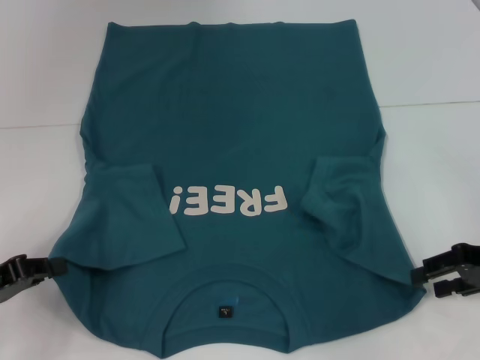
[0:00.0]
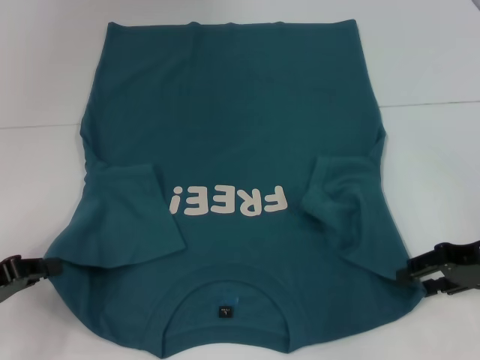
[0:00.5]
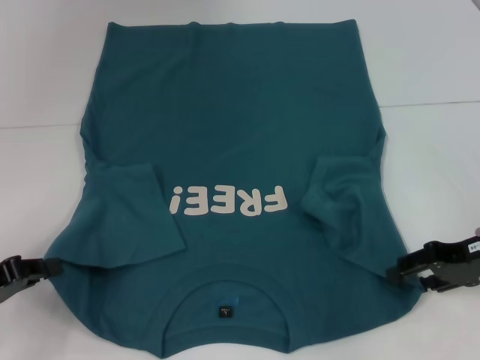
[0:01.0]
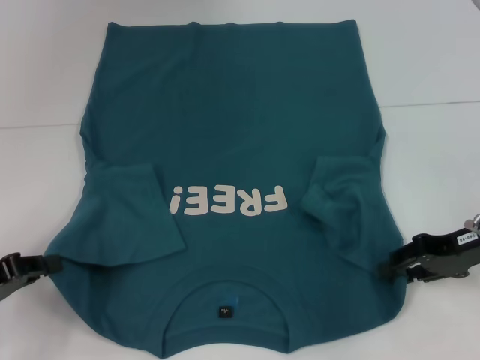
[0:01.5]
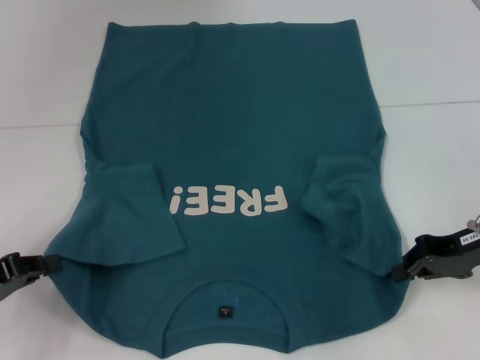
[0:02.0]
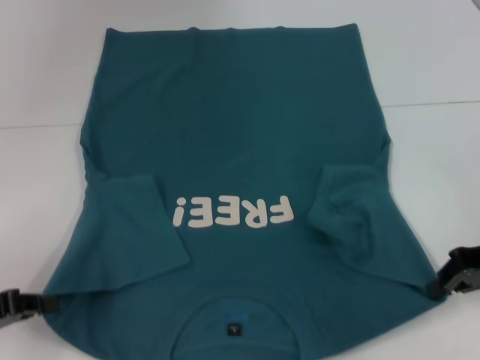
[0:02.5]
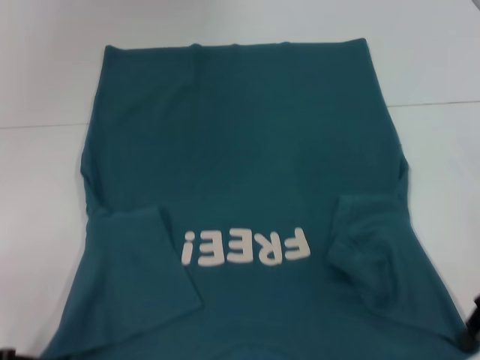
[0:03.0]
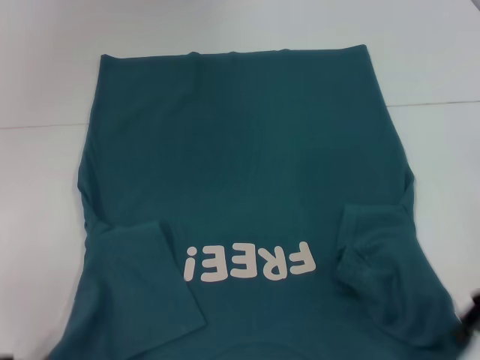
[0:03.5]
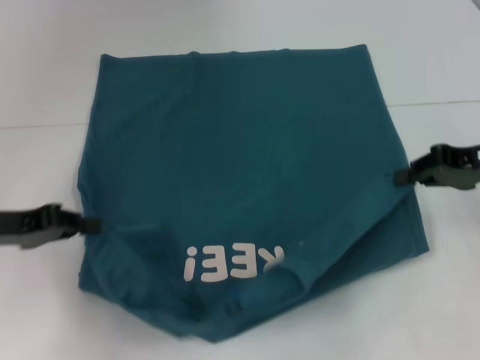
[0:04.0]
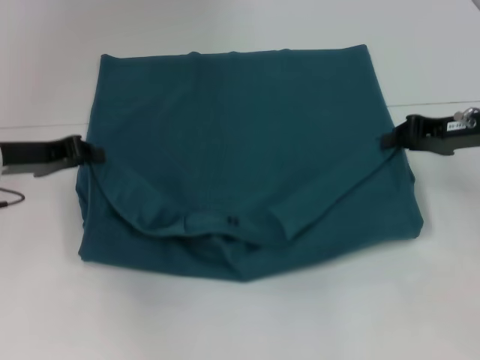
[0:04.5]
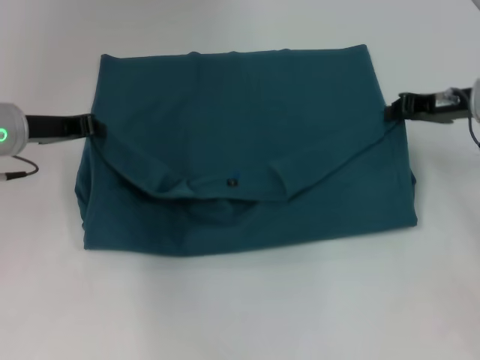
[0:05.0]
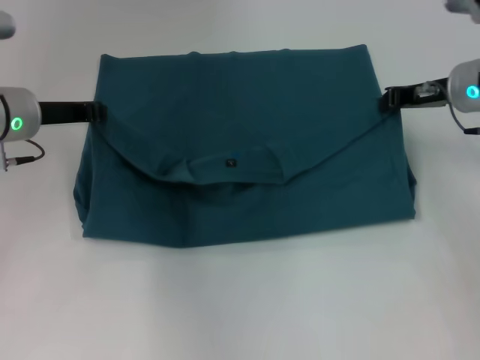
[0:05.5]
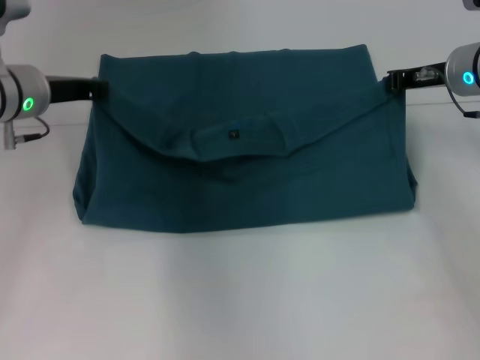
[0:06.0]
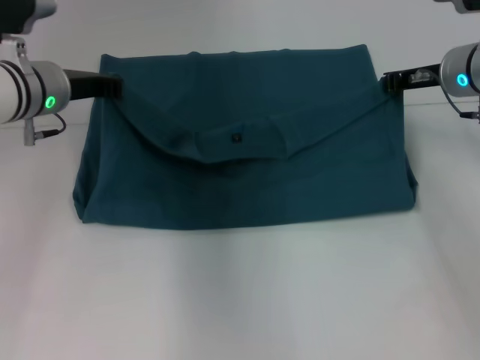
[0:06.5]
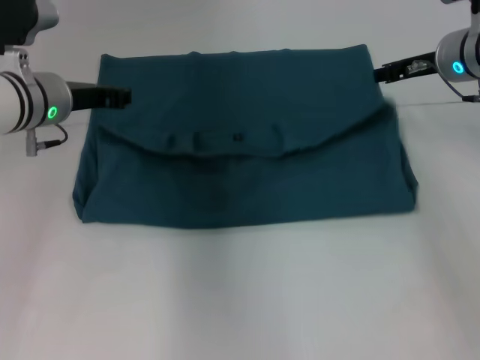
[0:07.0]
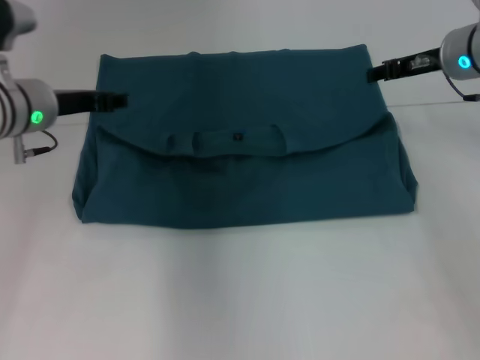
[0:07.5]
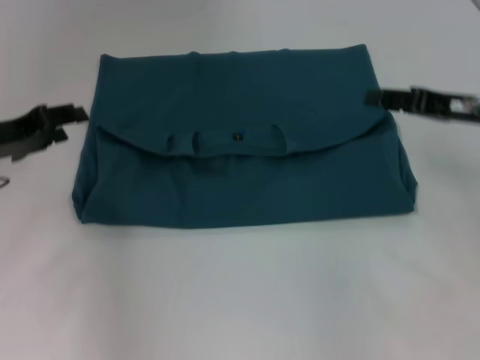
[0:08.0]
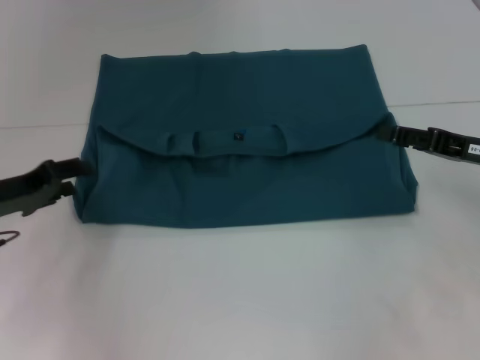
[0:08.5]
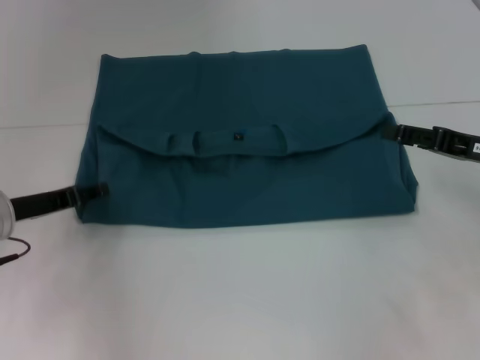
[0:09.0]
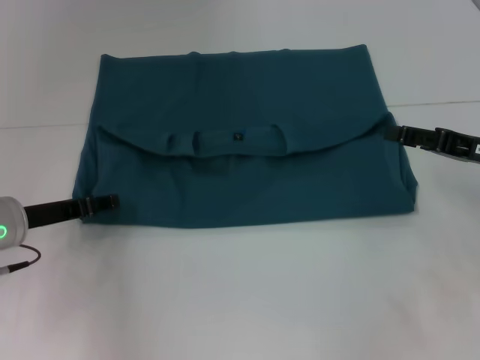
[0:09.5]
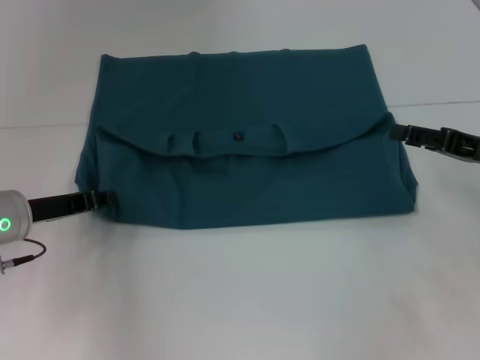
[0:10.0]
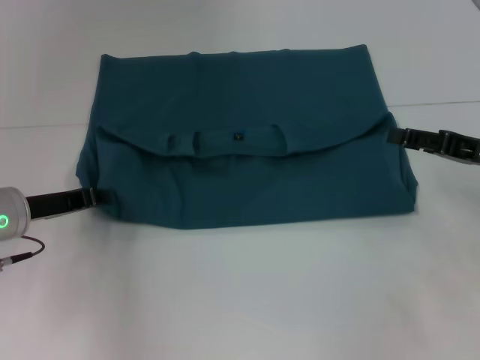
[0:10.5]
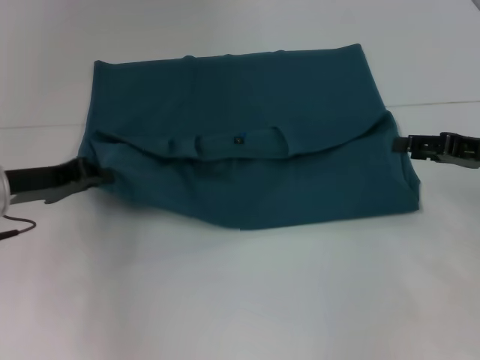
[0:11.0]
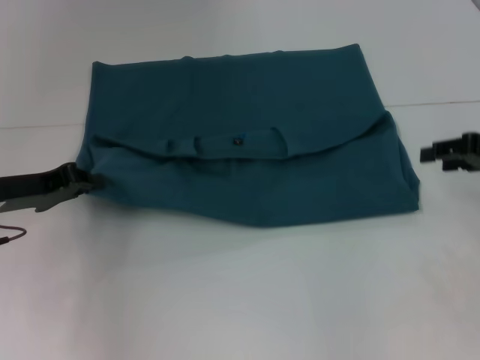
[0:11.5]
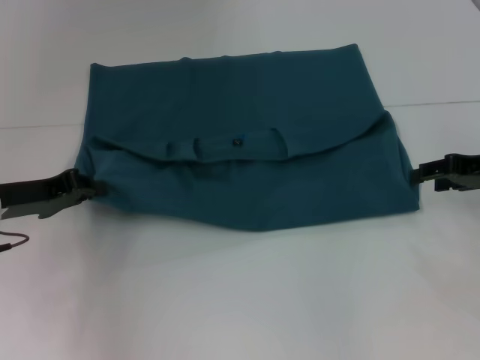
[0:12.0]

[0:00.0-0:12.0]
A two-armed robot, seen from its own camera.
Step, 0:00.0 to 0:02.0: Grab the bottom right corner with your right hand.
Step, 0:02.5 to 0:07.0: Fold the clothes to the left.
Step, 0:02.5 to 0:07.0: Fold the clothes to the right.
0:00.0 to 0:02.0: The right gripper closes up.
0:02.0 to 0:04.0: The right gripper goes approximately 5 cm upward. The left gripper heads forward, covering approximately 5 cm.
0:04.0 to 0:06.0: The right gripper goes roughly 10 cm forward and to the left. Meanwhile the left gripper heads forward and to the right, covering about 15 cm.
0:06.0 to 0:08.0: The left gripper travels to the left and backward by about 10 cm, and opens. Meanwhile the right gripper is displaced backward by approximately 10 cm, and opens.
0:08.0 to 0:10.0: The left gripper is displaced downward by approximately 5 cm, while the right gripper changes place by some 5 cm.
0:10.0 to 0:12.0: The left gripper closes its fingers.

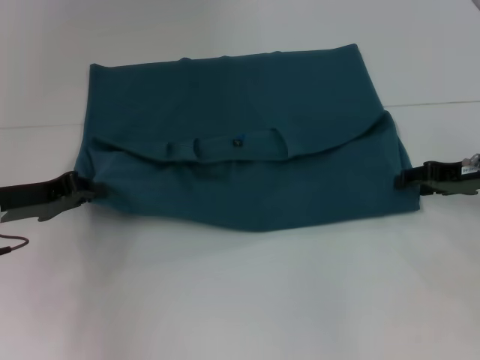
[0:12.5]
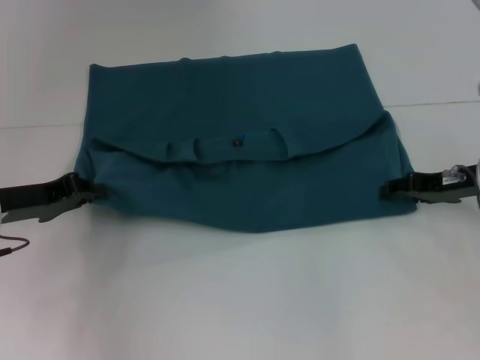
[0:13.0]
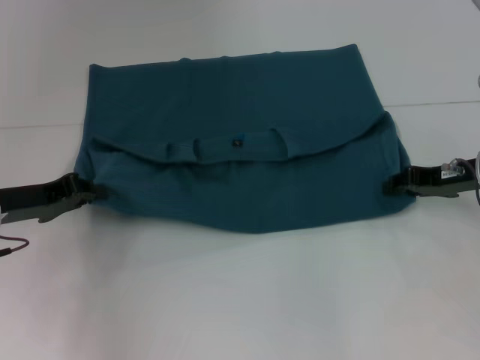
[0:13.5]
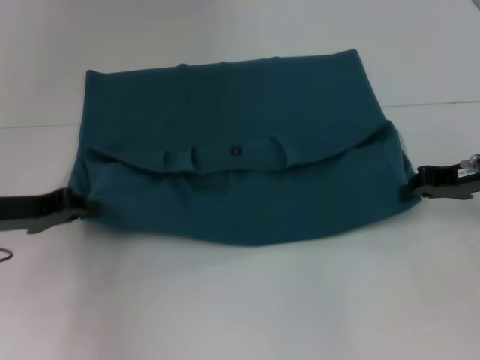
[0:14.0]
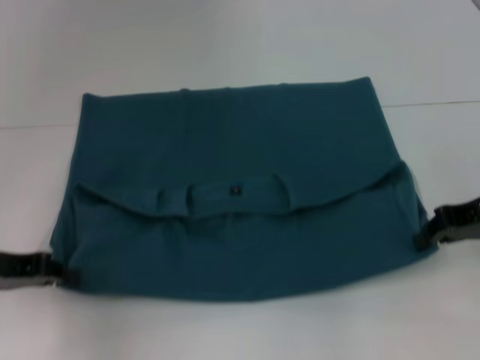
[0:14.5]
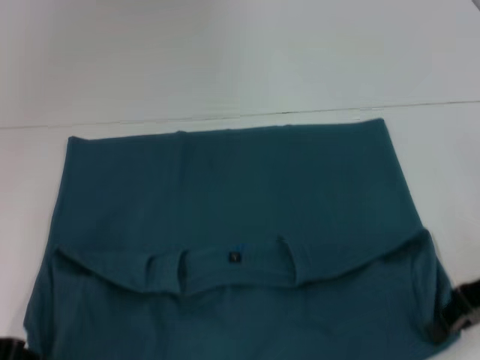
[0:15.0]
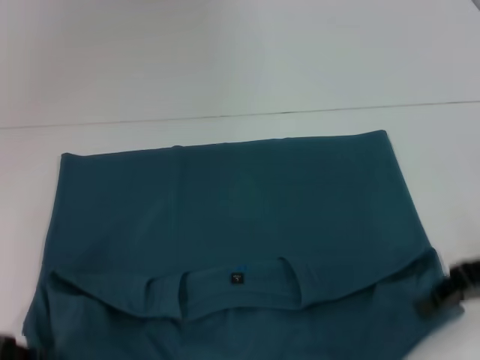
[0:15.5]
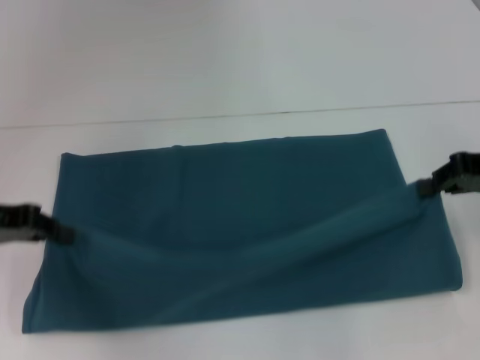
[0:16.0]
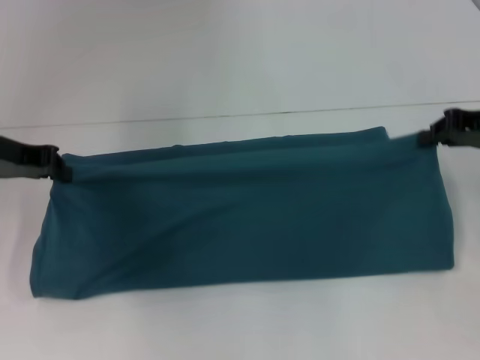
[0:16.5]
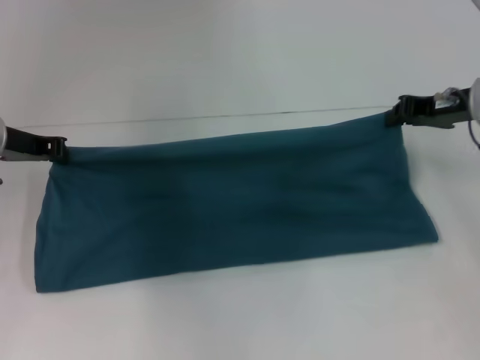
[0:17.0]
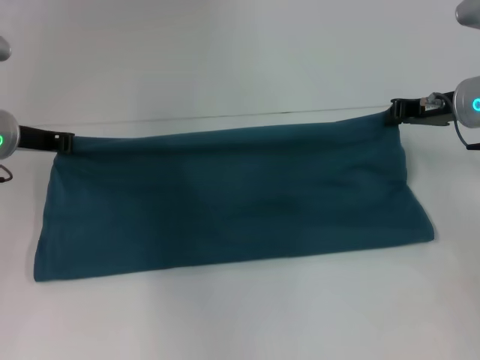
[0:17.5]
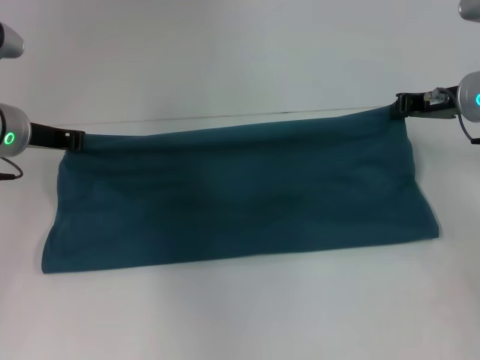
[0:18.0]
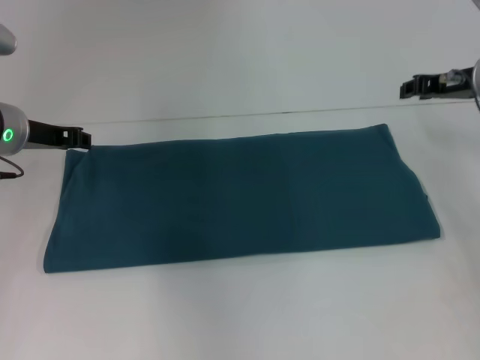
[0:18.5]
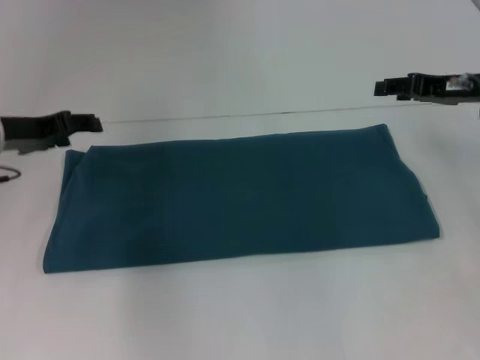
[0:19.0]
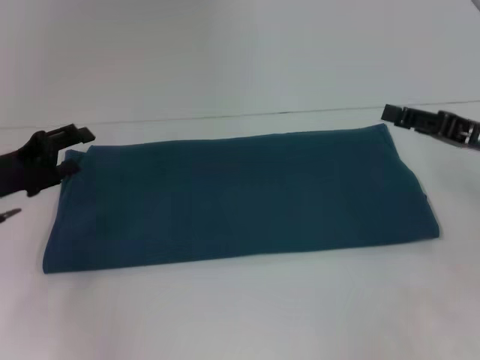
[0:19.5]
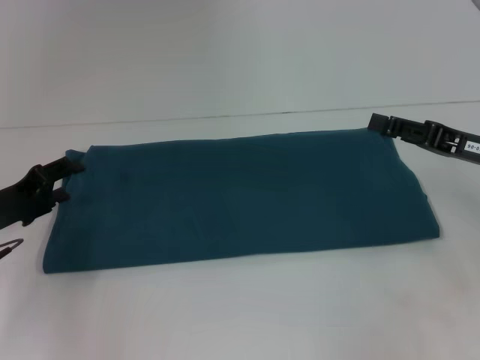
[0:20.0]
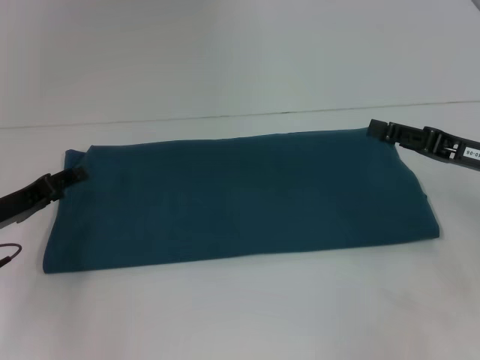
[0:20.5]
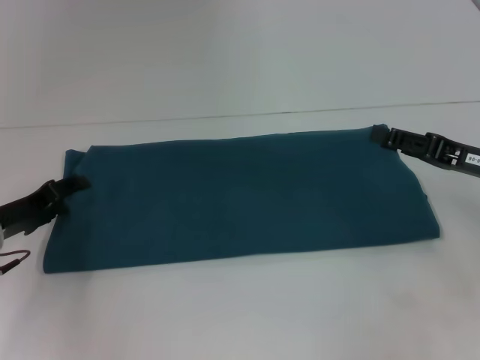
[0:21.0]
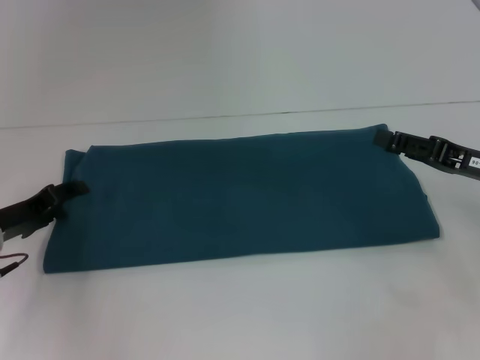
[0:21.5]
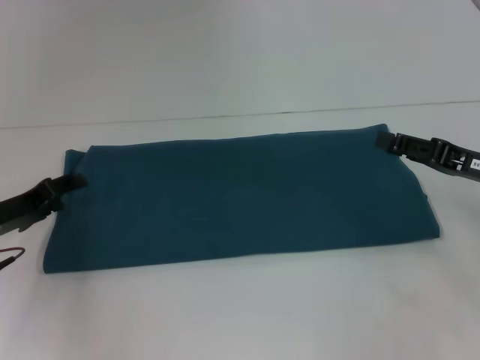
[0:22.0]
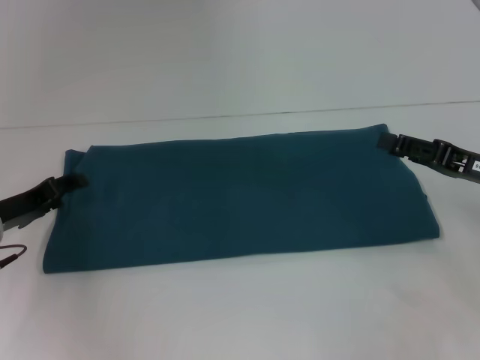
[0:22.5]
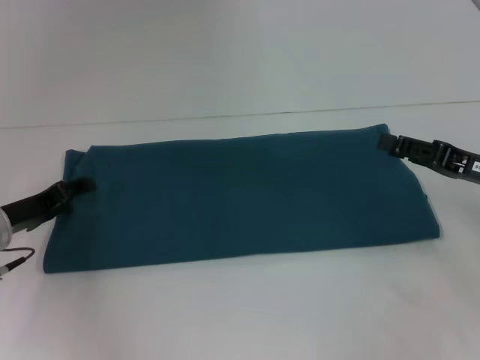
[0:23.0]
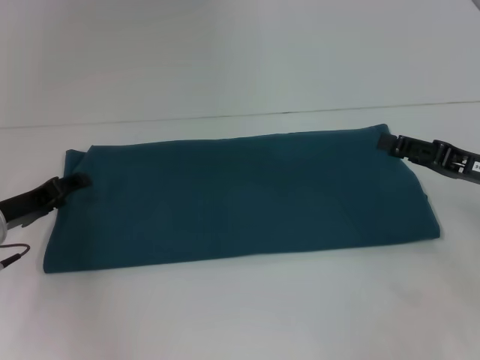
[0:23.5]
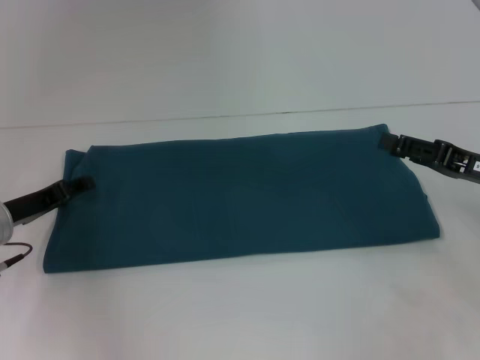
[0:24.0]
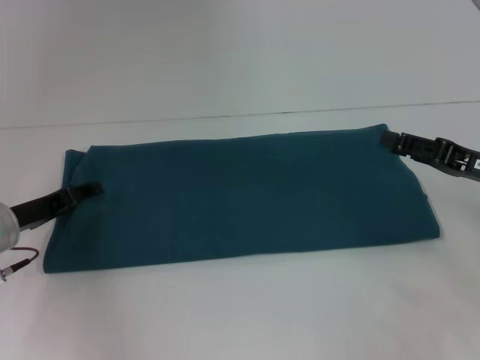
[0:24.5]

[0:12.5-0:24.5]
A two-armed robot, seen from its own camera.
Step, 0:12.5 to 0:15.0: Pull the clothes with your left hand.
Step, 0:12.5 to 0:15.0: Pull the clothes with your right hand.
Step, 0:15.5 to 0:18.0: Fold the clothes to the right.
0:12.5 to 0:14.5: The right gripper moves approximately 5 cm, and closes up.
0:14.5 to 0:16.5: The right gripper ends up about 5 cm from where it was. The left gripper heads forward and upward, covering some 10 cm.
0:16.5 to 0:18.5: The right gripper heads forward, covering about 5 cm. Meanwhile the left gripper shifts by roughly 5 cm.
0:18.5 to 0:20.5: The left gripper moves backward, downward and to the left, some 15 cm, and opens. Meanwhile the right gripper goes approximately 15 cm backward and downward, and opens up.
0:20.5 to 0:24.5: The grippers stay close to where they were, moving slightly.

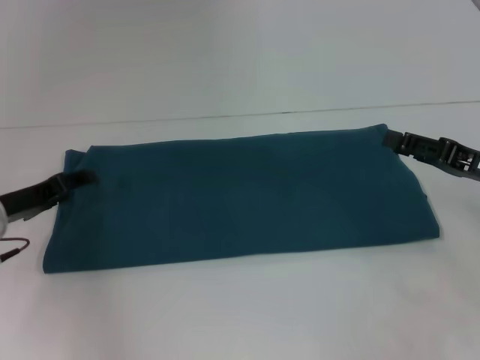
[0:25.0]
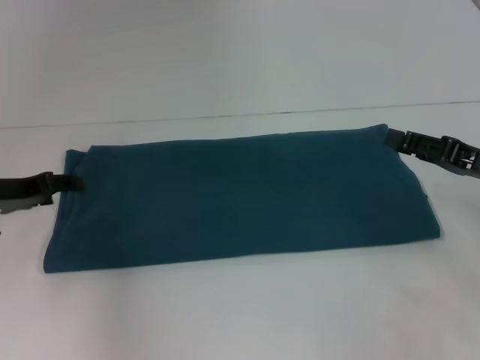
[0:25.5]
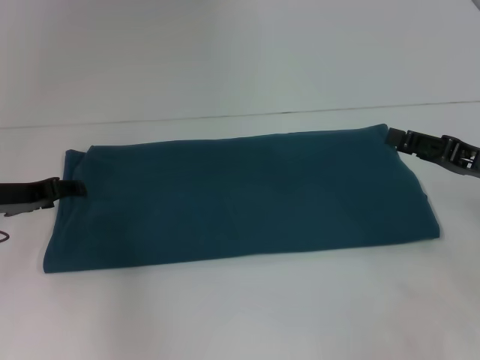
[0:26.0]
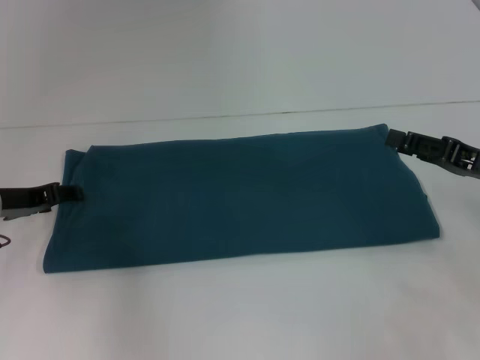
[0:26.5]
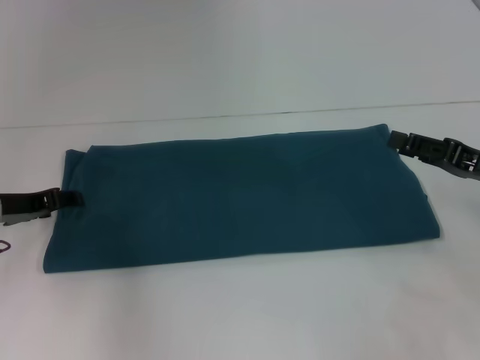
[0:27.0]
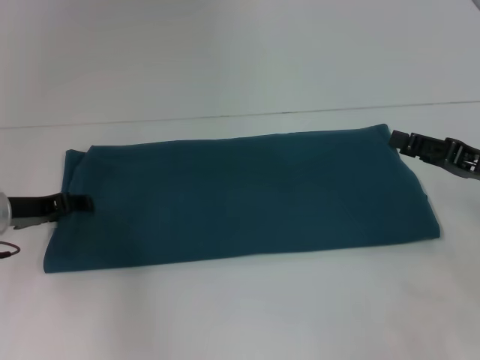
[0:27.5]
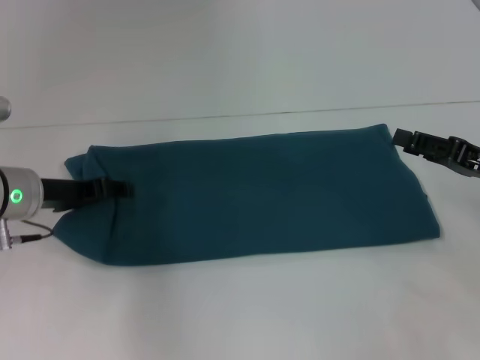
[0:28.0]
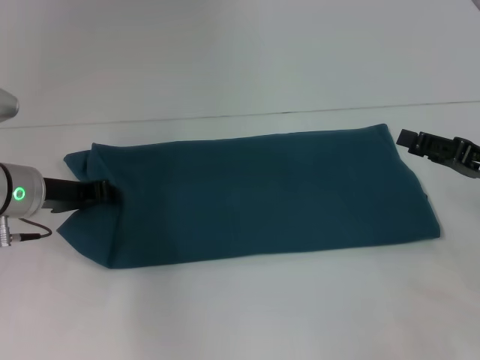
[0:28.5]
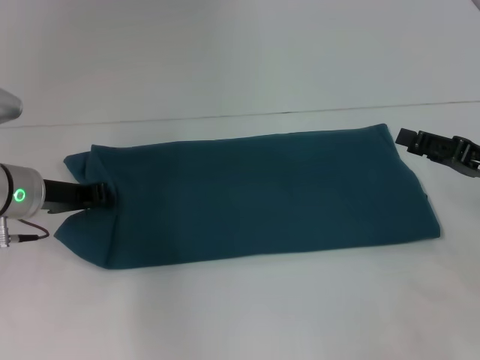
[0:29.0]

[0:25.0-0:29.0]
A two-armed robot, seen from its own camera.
0:25.0 to 0:27.0: The grippers make only small movements.
0:27.0 to 0:29.0: The left gripper shifts by approximately 5 cm, and closes.
